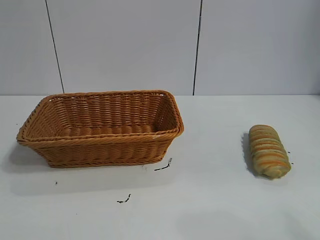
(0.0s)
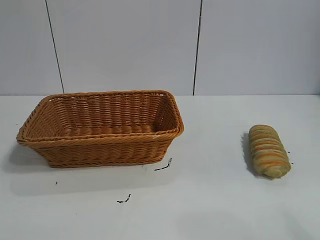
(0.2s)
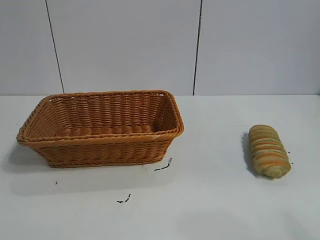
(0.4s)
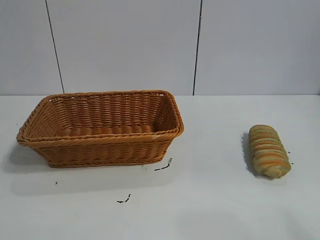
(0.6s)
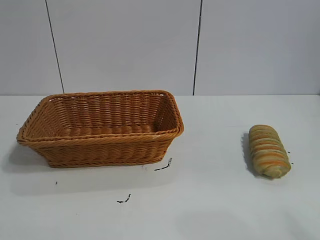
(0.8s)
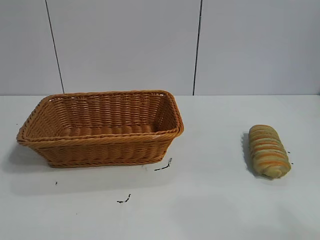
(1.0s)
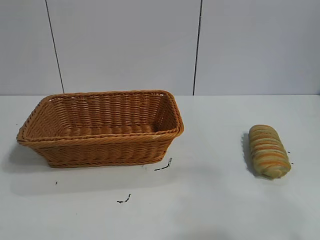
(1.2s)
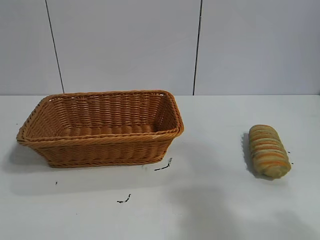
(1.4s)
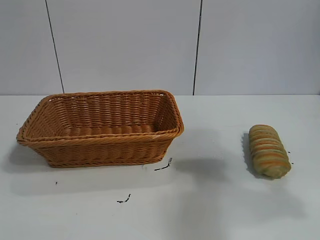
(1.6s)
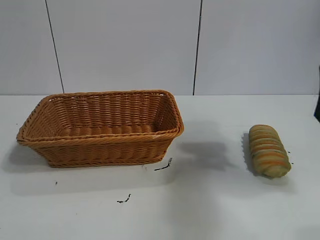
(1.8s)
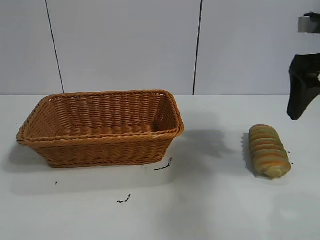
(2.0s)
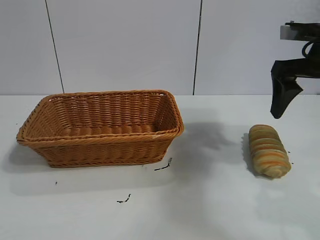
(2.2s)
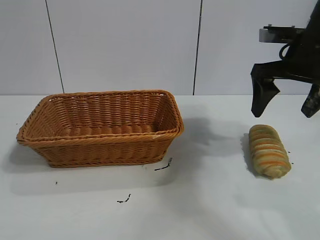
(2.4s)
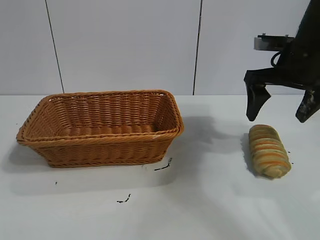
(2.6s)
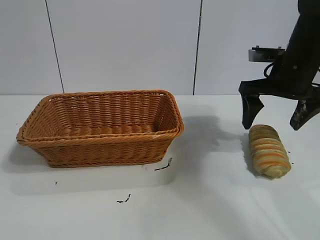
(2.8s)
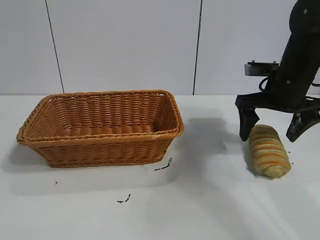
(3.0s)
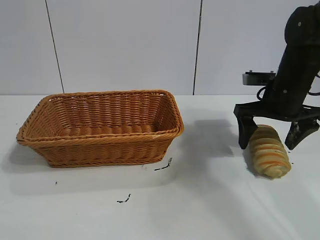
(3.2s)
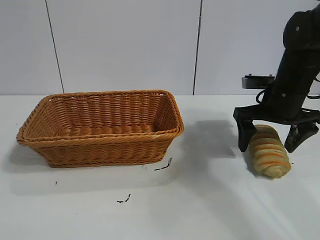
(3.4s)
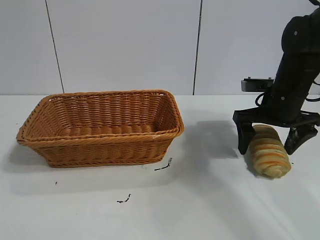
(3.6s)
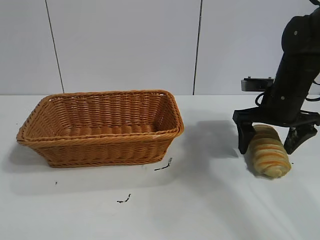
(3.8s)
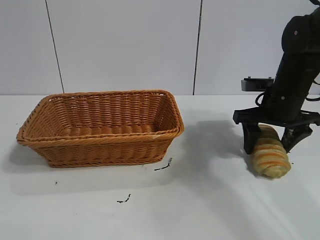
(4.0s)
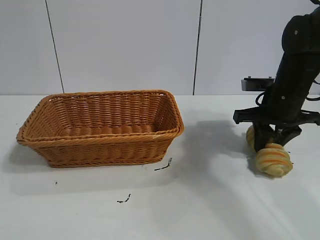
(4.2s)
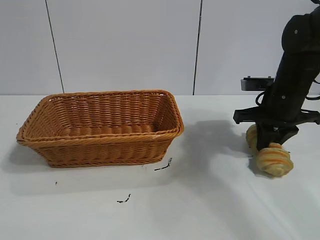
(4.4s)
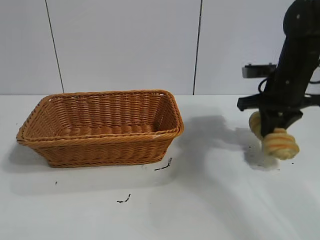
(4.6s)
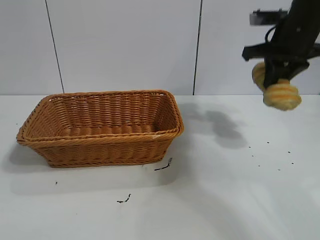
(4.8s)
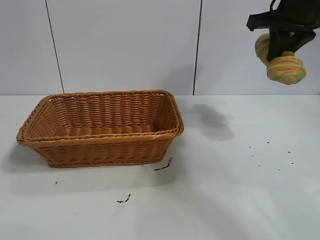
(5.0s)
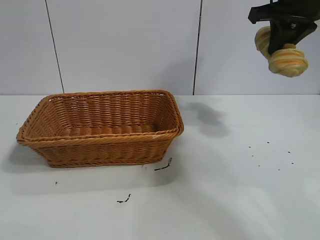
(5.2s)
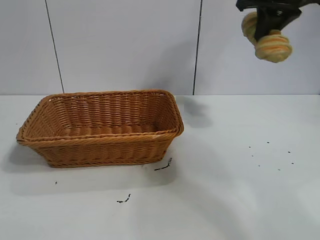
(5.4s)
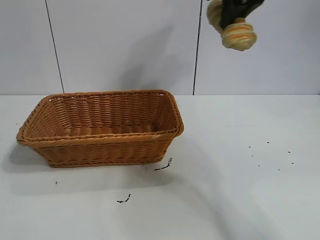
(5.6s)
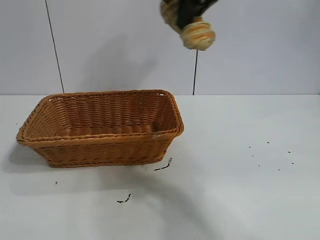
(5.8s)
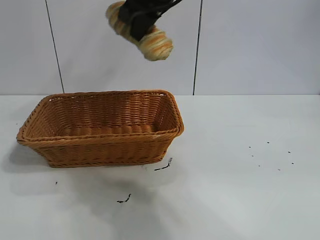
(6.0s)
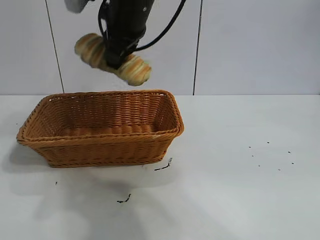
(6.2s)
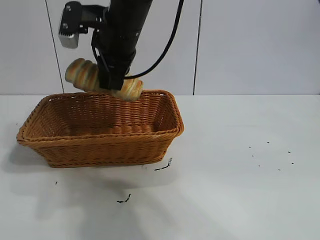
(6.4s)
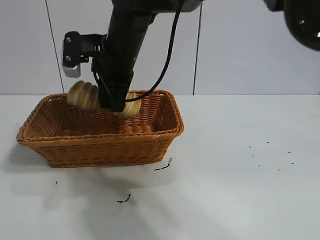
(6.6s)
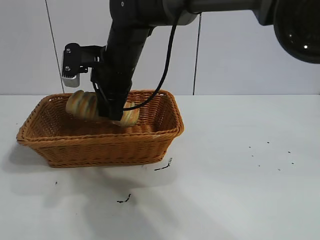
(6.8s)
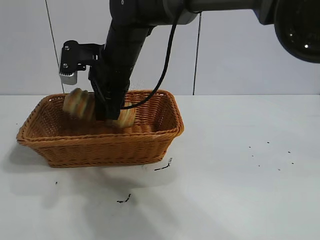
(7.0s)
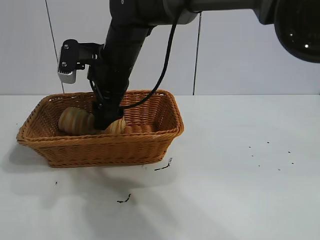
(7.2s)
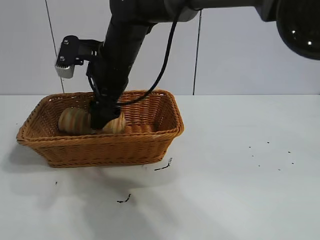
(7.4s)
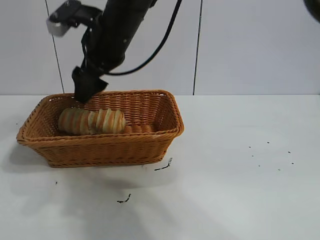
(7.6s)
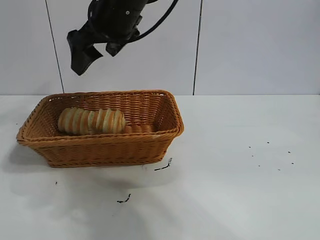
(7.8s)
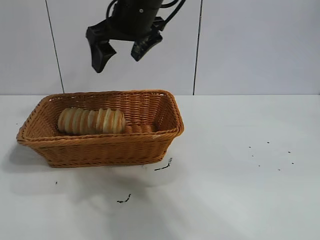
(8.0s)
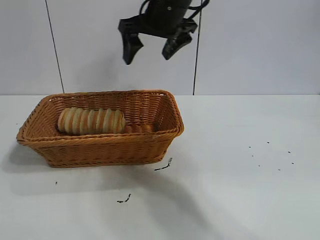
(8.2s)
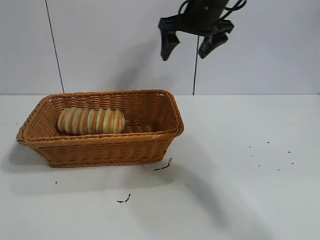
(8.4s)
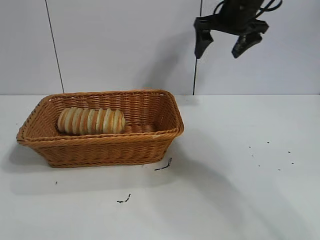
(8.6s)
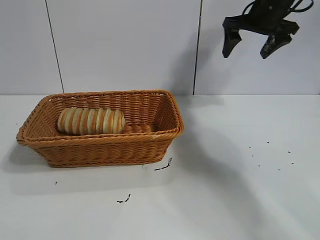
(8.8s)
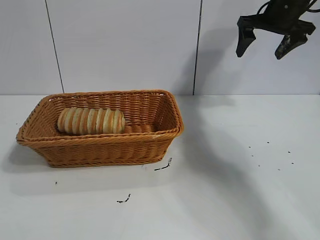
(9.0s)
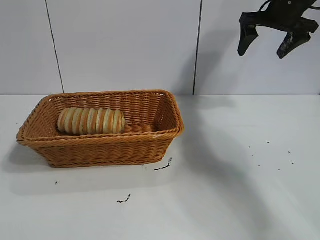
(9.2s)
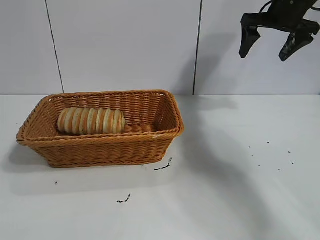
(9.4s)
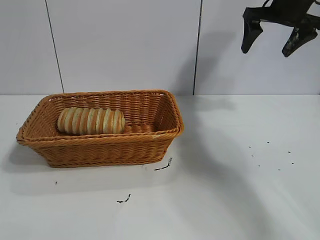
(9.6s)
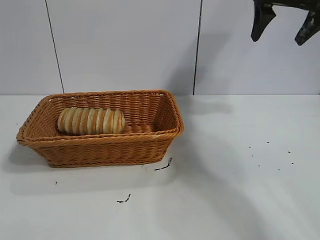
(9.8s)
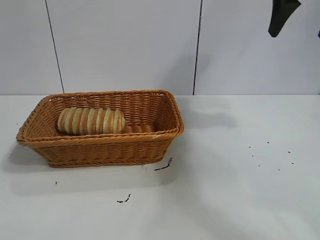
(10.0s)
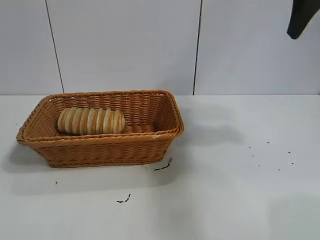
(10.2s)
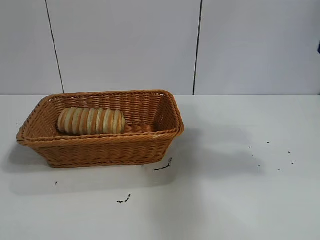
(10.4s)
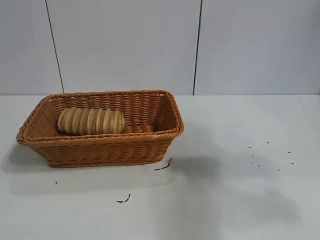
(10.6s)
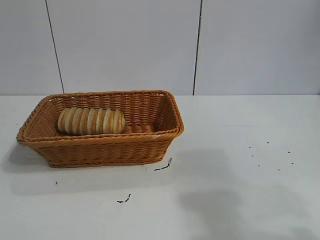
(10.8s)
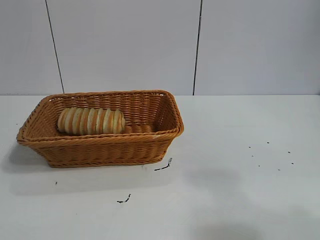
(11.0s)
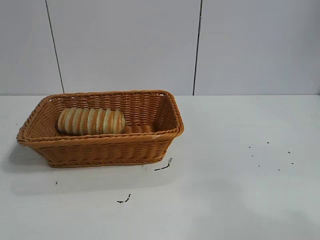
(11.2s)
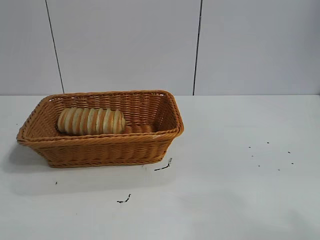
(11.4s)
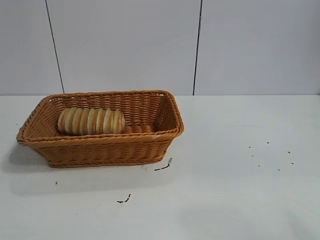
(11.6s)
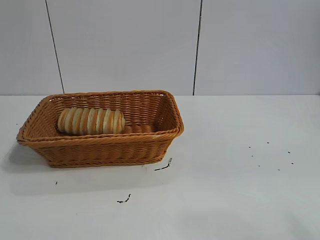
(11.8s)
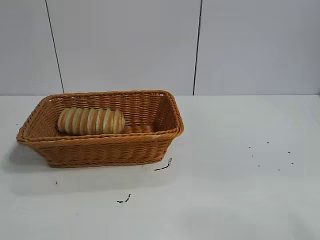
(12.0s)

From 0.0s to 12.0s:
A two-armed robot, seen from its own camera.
Task of the whole recording: pick up the long bread and put it into the basket.
Step, from 1.8s to 4.4s: Grasp the long bread with right gripper.
Step, from 4.6s to 7.4s: Place the long bread in the basket with right gripper.
